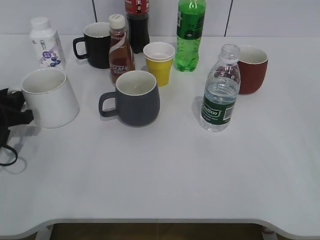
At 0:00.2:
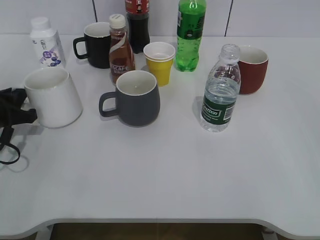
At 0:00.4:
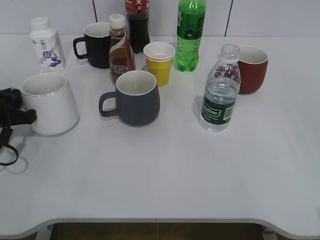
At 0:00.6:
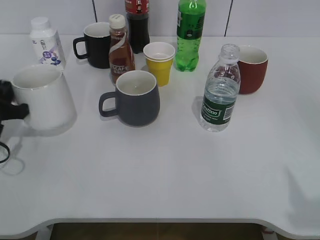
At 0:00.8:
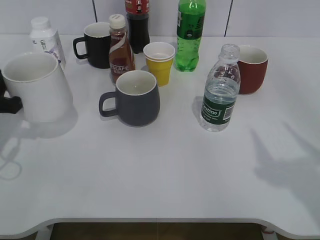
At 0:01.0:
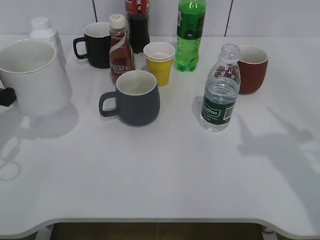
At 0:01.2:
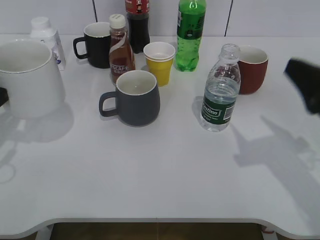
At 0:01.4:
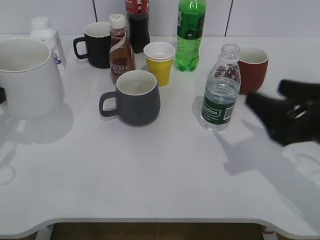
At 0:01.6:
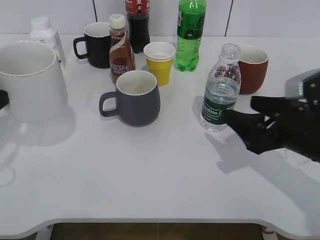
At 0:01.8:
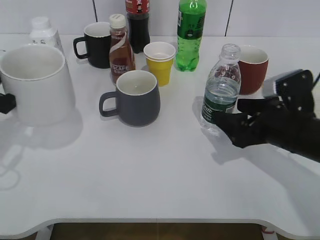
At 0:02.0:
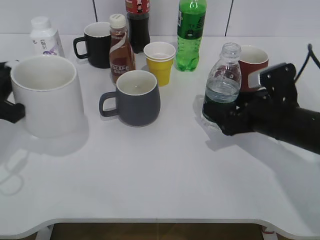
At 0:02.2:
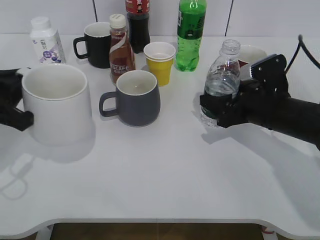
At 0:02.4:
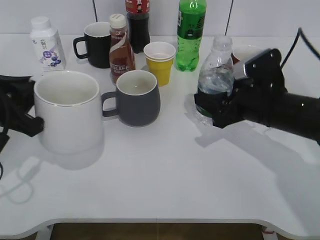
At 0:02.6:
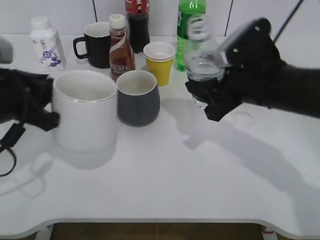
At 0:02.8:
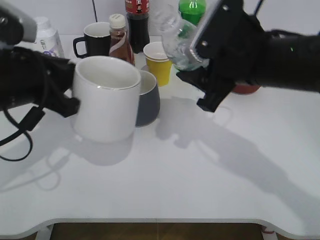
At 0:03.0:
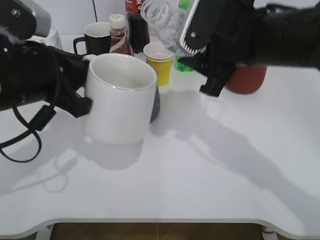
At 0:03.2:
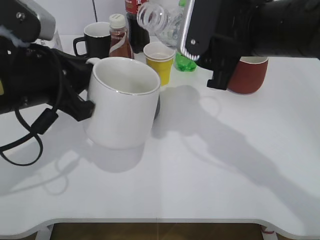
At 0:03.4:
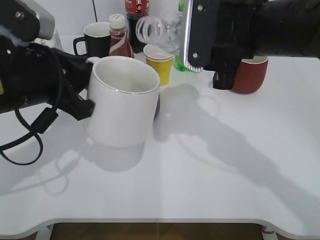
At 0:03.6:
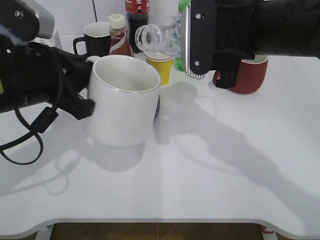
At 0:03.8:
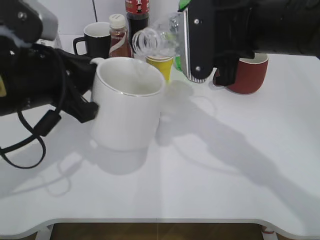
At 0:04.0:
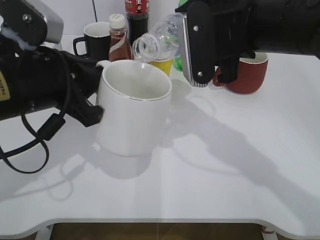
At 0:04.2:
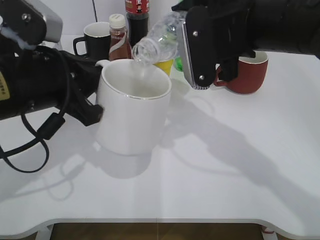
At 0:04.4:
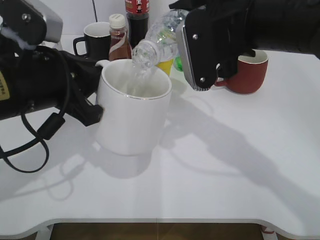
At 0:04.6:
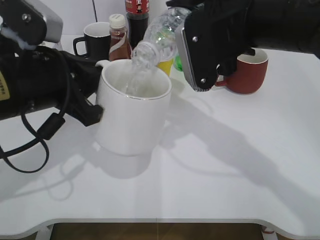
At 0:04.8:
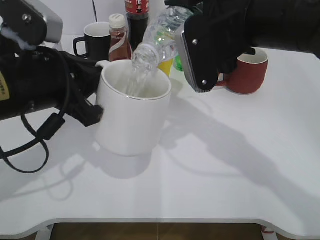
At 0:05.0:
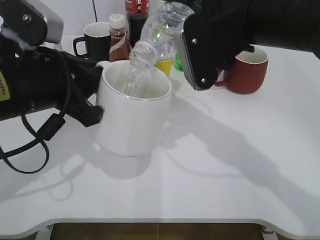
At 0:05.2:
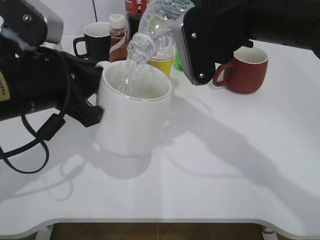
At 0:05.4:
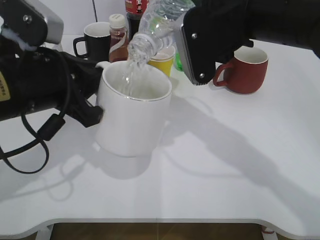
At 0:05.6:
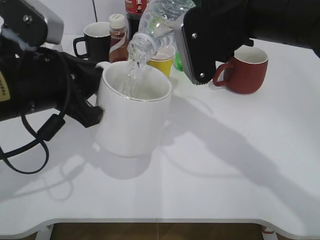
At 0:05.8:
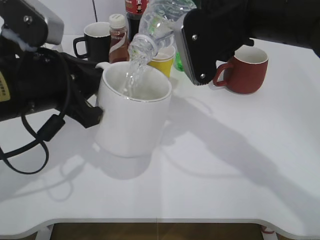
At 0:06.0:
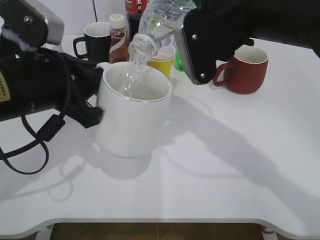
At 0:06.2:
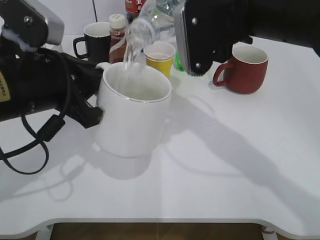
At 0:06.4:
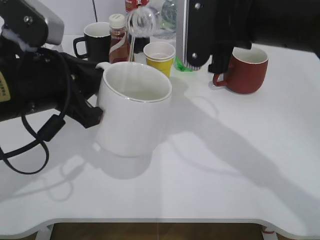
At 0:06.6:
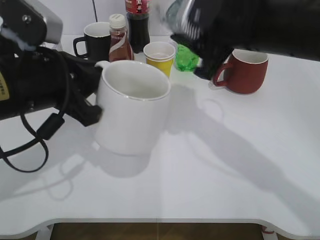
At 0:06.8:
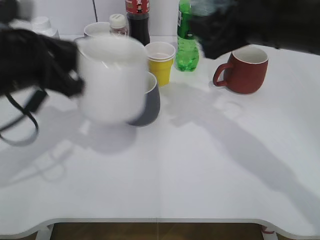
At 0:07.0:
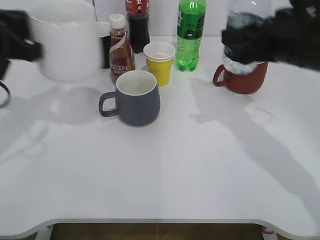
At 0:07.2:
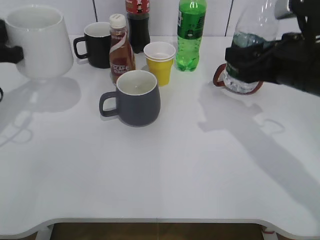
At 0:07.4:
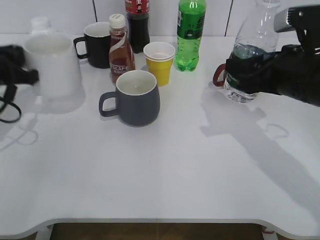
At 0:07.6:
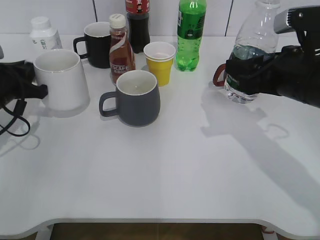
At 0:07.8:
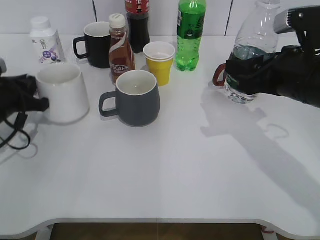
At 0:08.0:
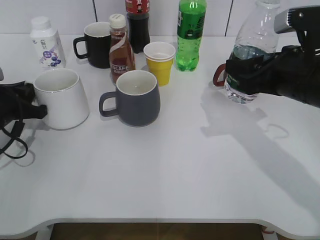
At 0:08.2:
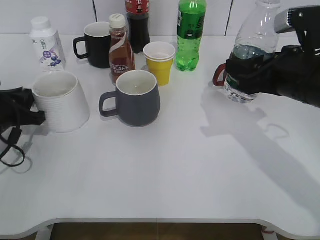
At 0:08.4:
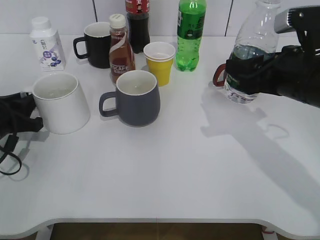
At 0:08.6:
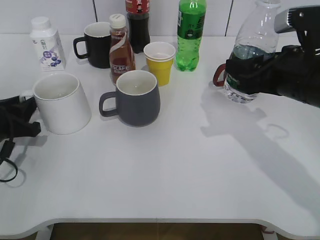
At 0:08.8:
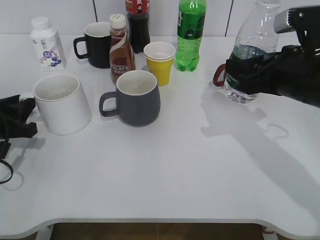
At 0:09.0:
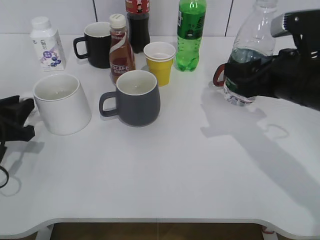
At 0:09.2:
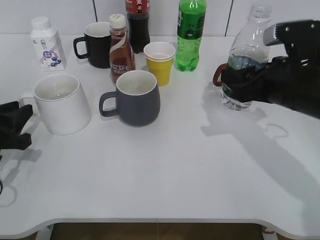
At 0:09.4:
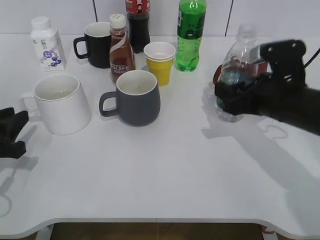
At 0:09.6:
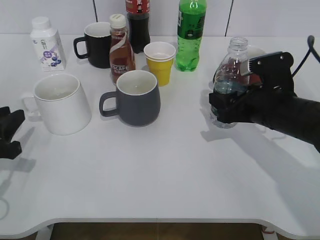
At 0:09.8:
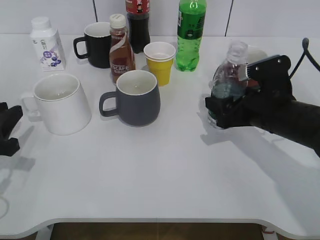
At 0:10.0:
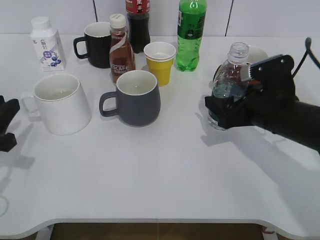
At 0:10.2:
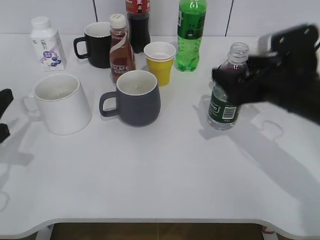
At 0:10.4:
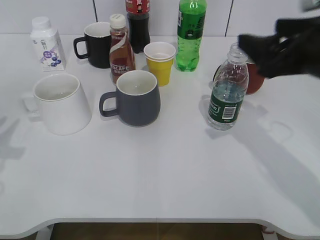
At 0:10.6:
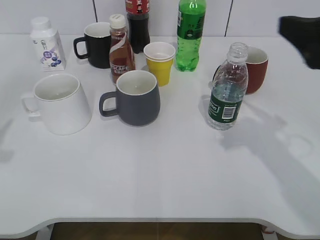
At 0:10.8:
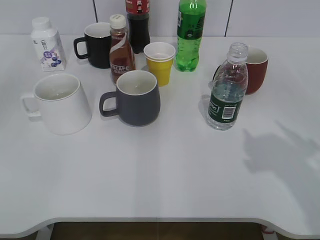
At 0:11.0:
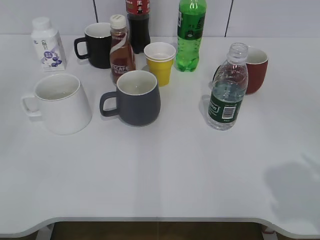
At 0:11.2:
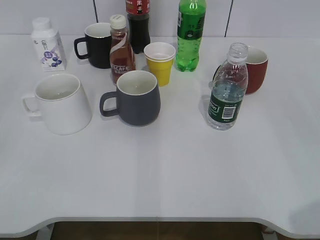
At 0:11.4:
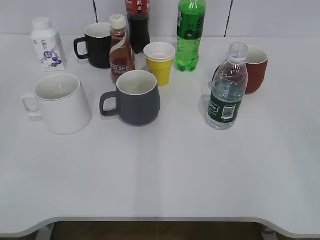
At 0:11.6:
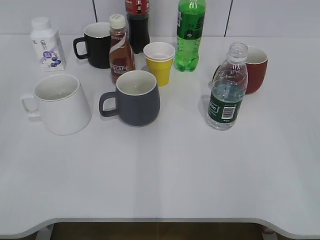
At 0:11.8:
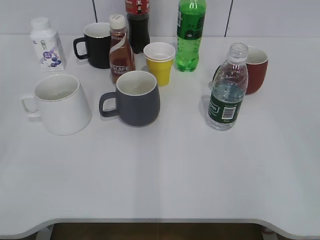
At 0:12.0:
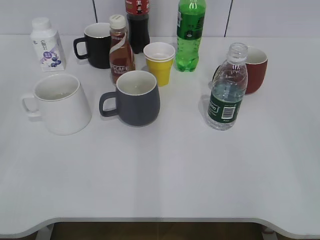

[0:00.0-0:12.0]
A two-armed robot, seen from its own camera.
Step, 0:00.2 to 0:01.4: Lift the white cup with left gripper.
Step, 0:01.6 to 0:02.2: Grasp the bottle with water with right gripper.
Step, 0:02.4 to 0:06.4: Pour the water from bottle to cup with right gripper.
Step, 0:06.6 to 0:08.2: Place the white cup on the table with left gripper.
Step, 0:08.6 to 0:10.0: Place the water bottle on the table with right gripper.
0:00.0 to 0:01.6: The left gripper goes approximately 10 cm upward and backward, and closes up, while the right gripper heads forward, downward and to the left, covering approximately 25 cm.
0:01.6 to 0:03.0: The right gripper moves to the left, upward and forward, about 15 cm, and closes; the left gripper goes roughly 10 cm to the right.
0:04.4 to 0:06.0: There are only small adjustments of the grippers.
0:06.0 to 0:07.6: The right gripper travels to the right and downward by approximately 15 cm, while the left gripper travels to the left, forward and downward by some 20 cm.
0:07.6 to 0:09.0: The left gripper heads backward, covering some 10 cm, and opens its fingers.
0:09.0 to 0:10.4: The right gripper opens up. Meanwhile the left gripper heads upward, covering about 10 cm.
0:10.4 to 0:12.0: Both grippers travel together backward, approximately 25 cm. The left gripper opens.

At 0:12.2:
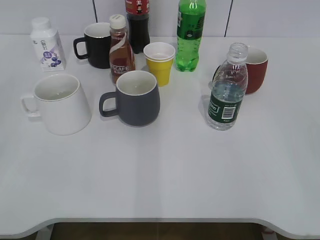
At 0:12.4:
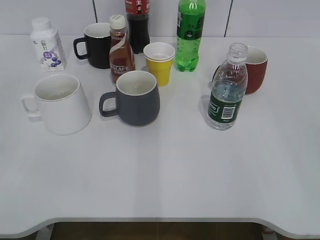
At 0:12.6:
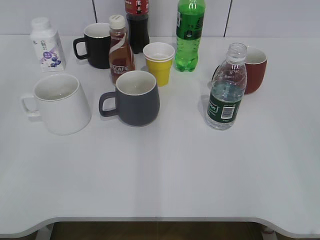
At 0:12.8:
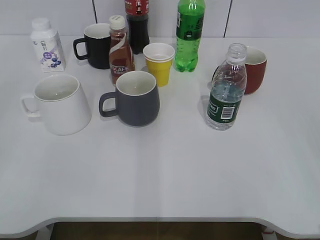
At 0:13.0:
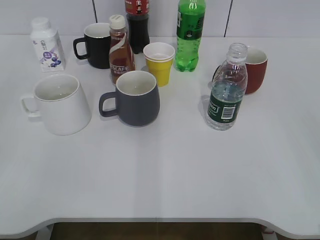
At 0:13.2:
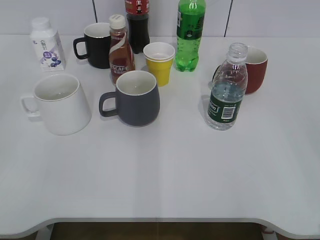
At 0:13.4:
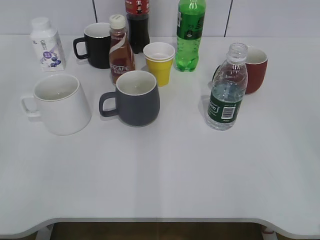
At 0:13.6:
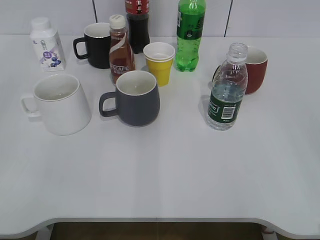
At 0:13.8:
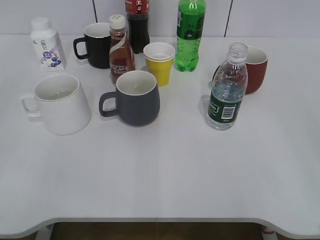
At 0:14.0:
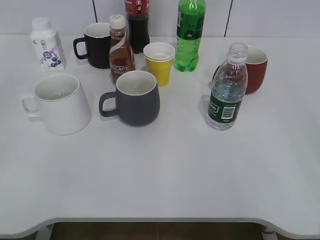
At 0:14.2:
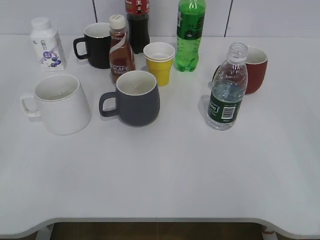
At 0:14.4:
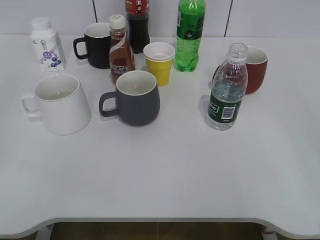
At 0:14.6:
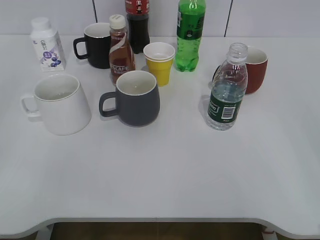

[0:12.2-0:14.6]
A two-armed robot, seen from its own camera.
0:13.4 to 0:14.6: Neither gripper changes place.

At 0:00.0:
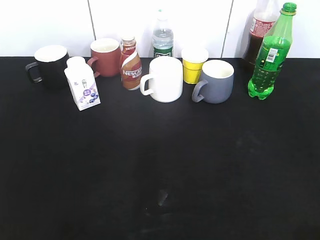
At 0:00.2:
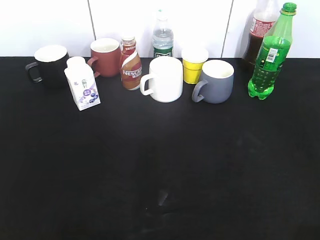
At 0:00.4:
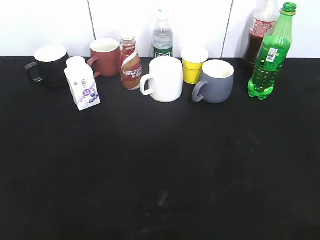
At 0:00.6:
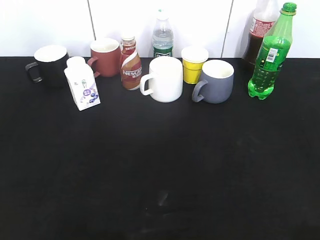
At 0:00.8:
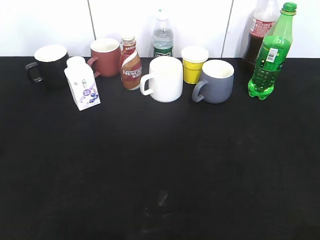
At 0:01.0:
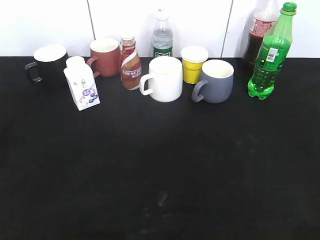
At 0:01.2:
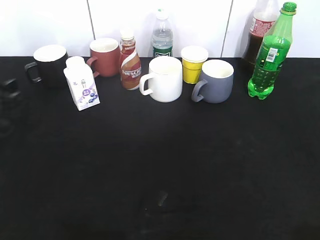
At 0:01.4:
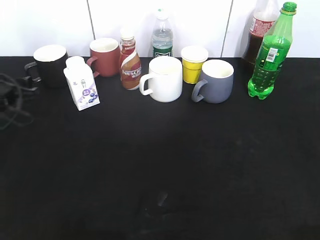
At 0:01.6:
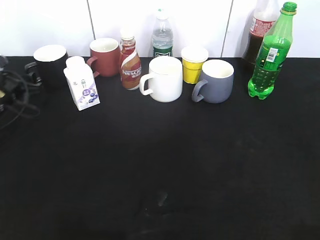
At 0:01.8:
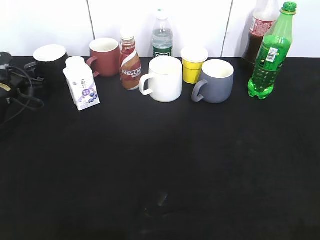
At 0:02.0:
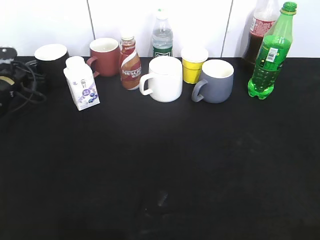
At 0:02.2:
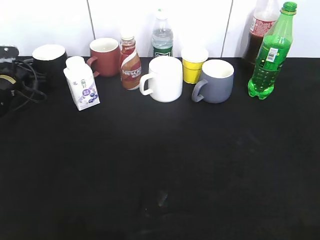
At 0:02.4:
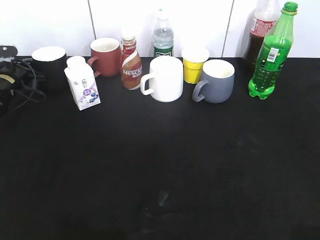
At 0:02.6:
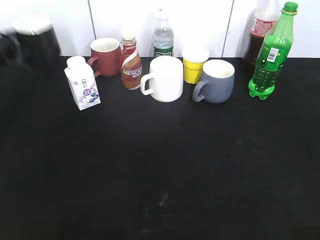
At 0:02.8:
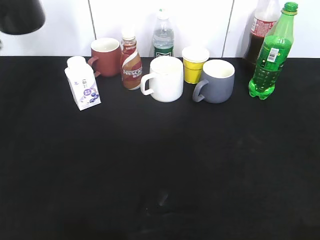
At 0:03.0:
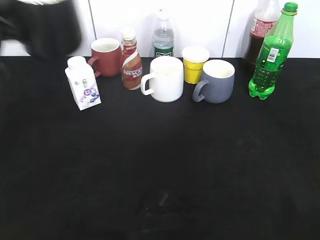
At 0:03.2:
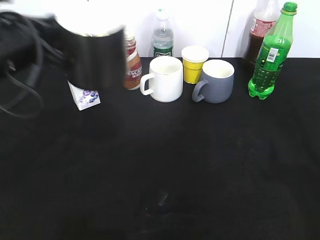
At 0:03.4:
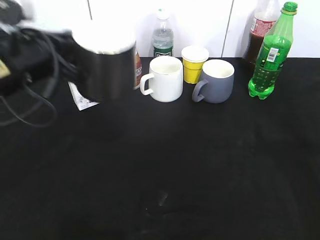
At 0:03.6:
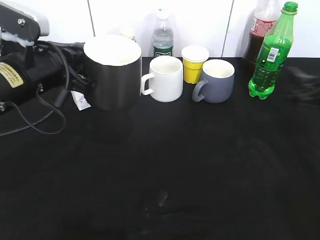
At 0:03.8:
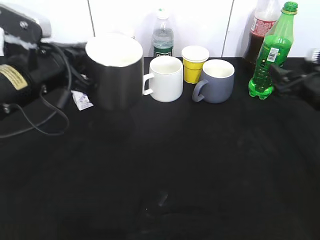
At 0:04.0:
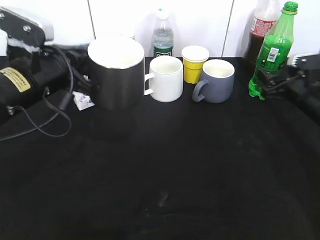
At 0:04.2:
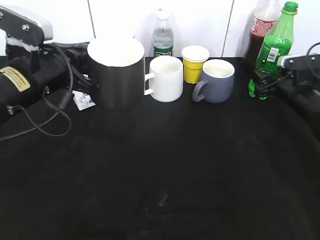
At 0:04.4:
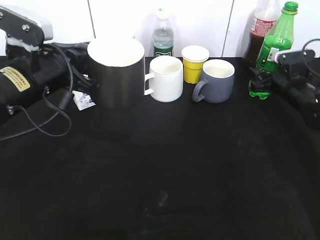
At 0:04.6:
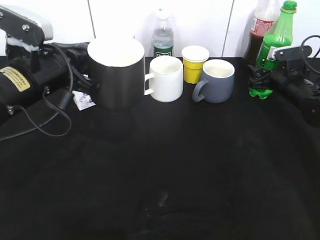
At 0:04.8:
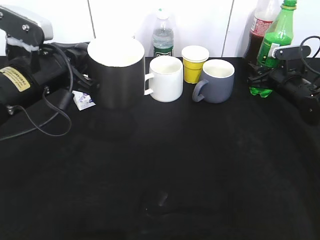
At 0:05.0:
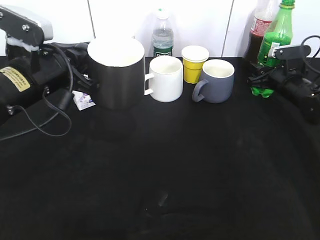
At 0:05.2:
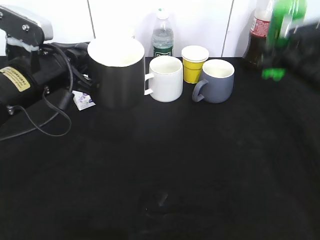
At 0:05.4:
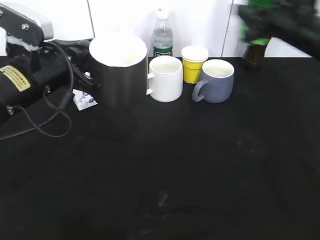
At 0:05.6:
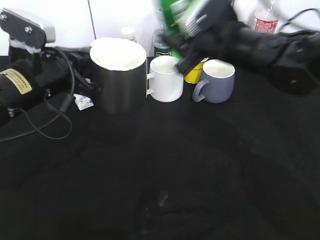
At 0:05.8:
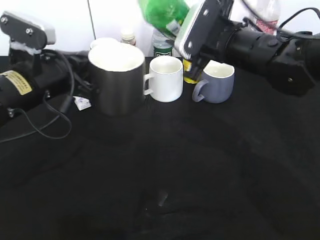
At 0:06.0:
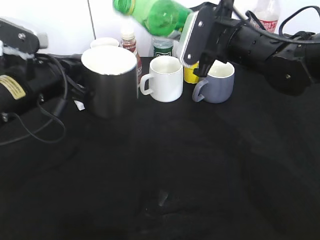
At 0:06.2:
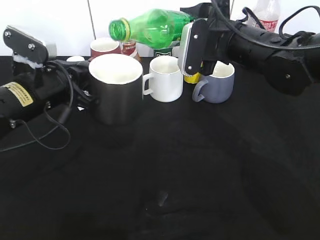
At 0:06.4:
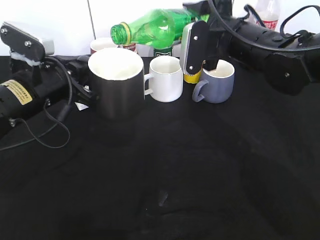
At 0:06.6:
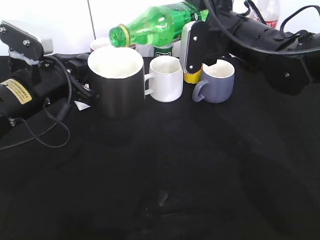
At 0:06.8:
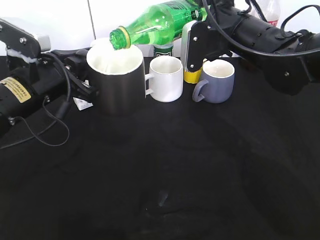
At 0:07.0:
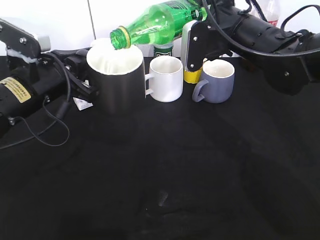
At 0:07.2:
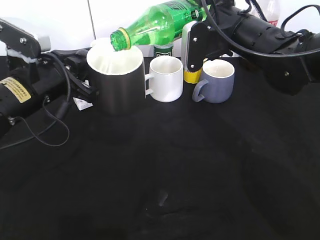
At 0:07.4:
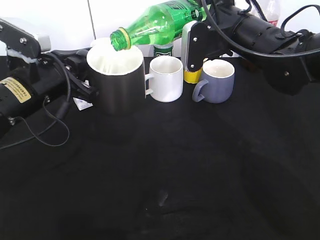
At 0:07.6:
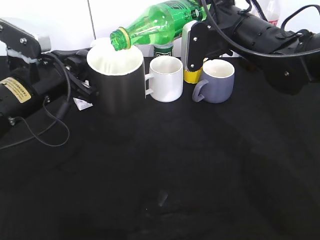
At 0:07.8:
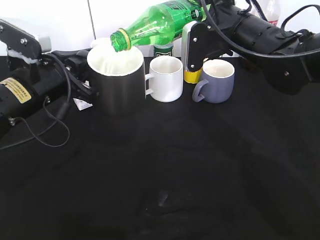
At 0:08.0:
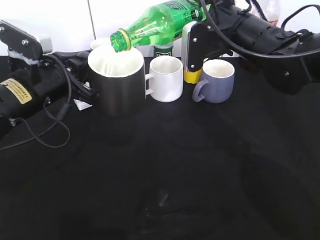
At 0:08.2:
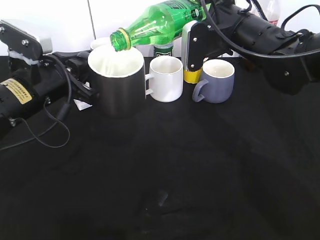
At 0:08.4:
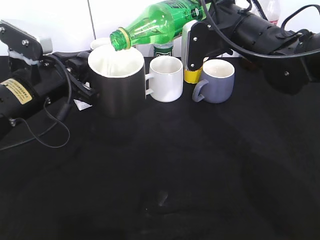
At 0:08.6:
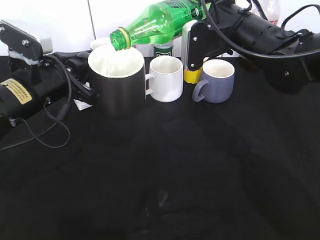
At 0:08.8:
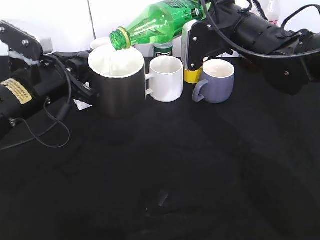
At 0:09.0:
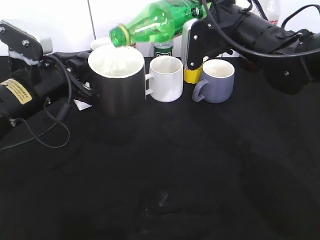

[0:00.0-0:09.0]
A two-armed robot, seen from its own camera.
Step, 0:00.0 to 0:02.2: Grasp the black cup with left gripper.
Step, 0:02.4 to 0:02.8: Lift the black cup with left gripper.
Step, 0:03.0 to 0:04.8: Grasp the bottle with sprite with right gripper.
0:00.0 to 0:01.6: The left gripper shifts about 50 cm forward and downward.
0:01.6 to 0:03.0: The left gripper goes approximately 25 cm upward, backward and to the right, and closes up.
0:03.0 to 0:04.4: The left gripper heads to the right and downward, covering approximately 10 cm. The right gripper moves forward and downward, about 50 cm.
0:04.4 to 0:06.0: The right gripper heads to the left, upward and backward, covering roughly 25 cm, and closes up.
0:07.6 to 0:09.0: Both grippers stay about where they are.
